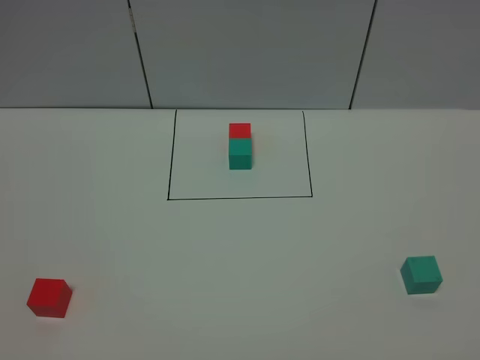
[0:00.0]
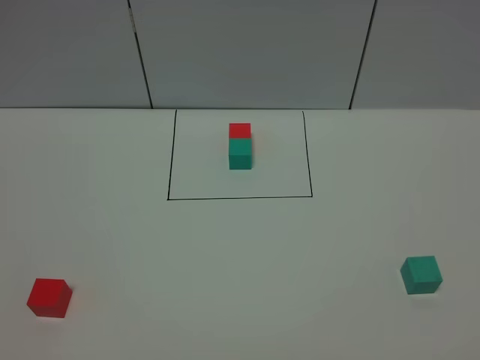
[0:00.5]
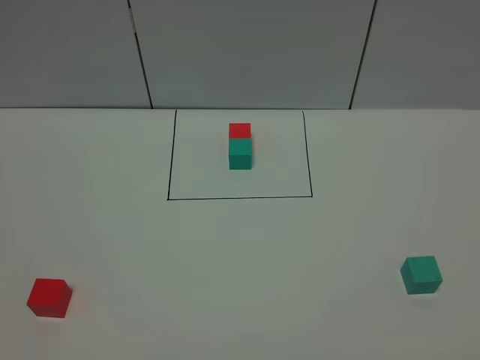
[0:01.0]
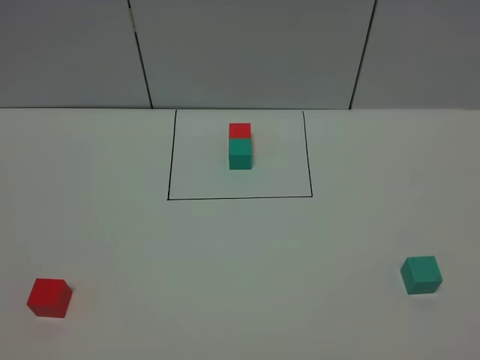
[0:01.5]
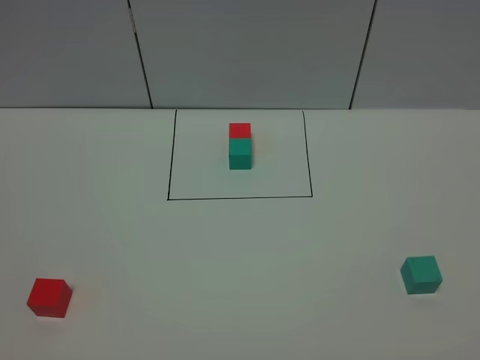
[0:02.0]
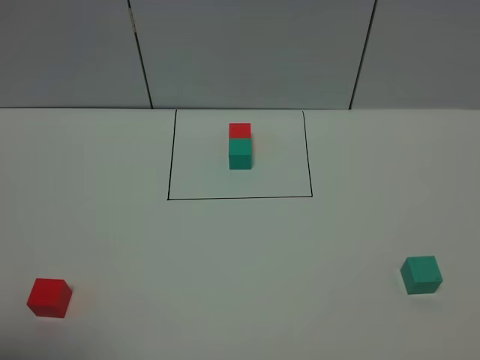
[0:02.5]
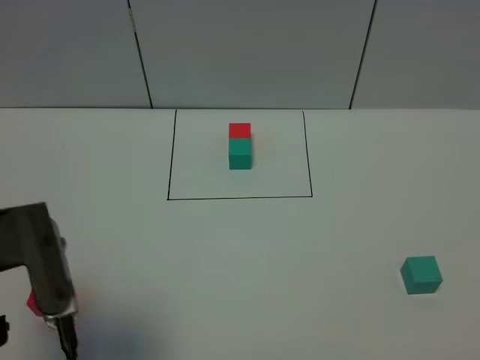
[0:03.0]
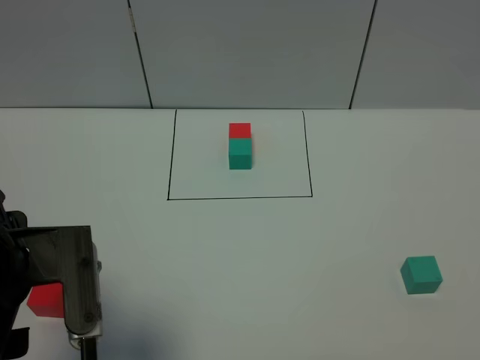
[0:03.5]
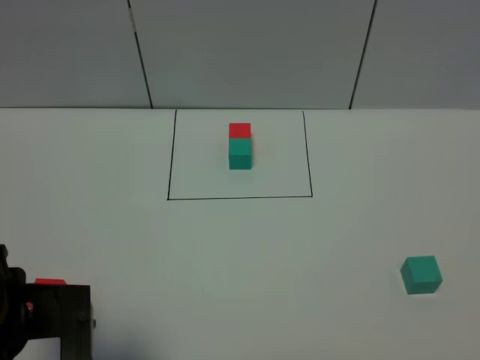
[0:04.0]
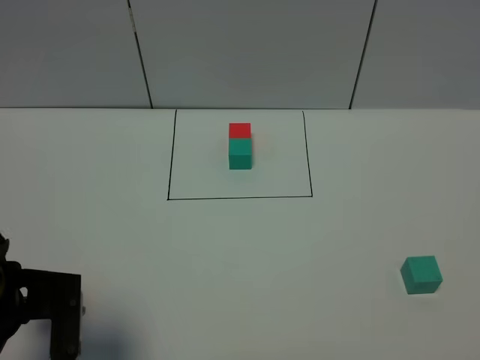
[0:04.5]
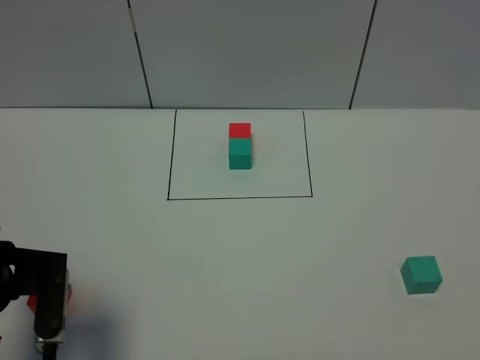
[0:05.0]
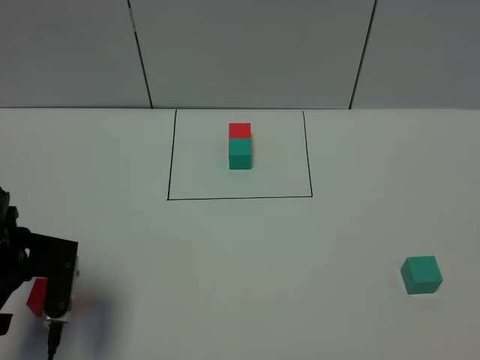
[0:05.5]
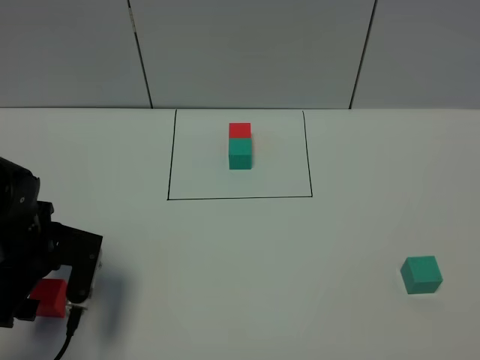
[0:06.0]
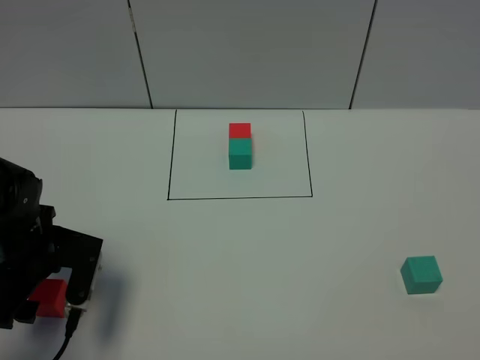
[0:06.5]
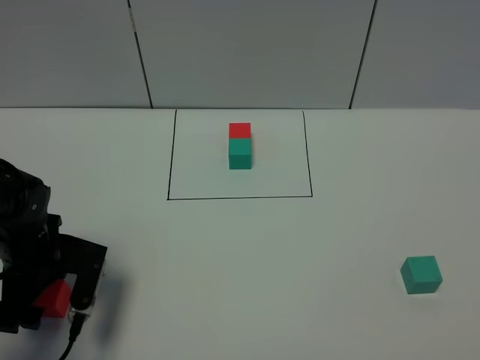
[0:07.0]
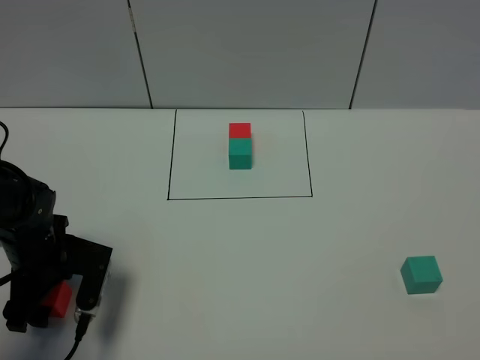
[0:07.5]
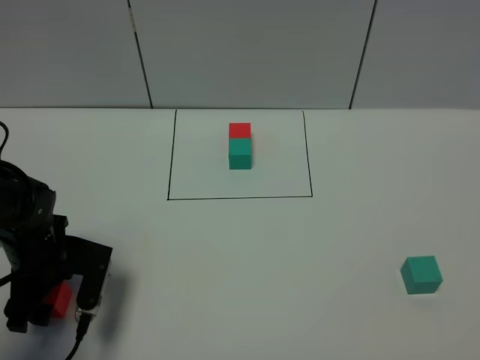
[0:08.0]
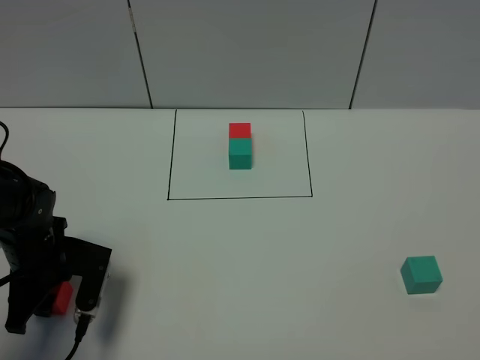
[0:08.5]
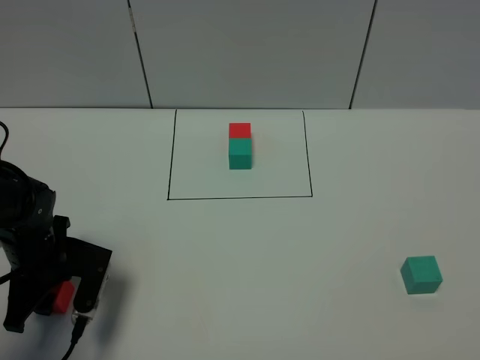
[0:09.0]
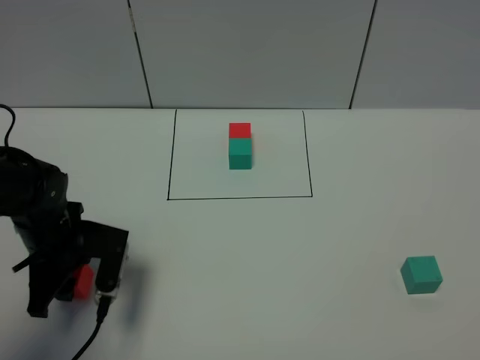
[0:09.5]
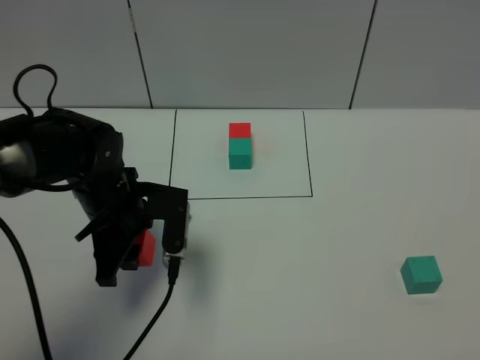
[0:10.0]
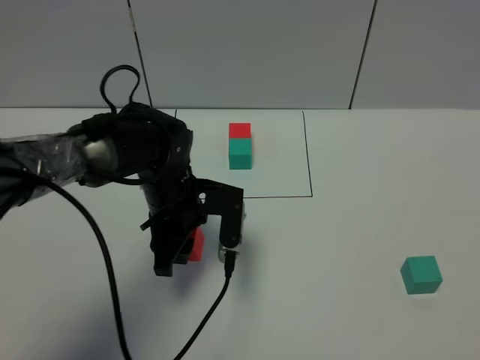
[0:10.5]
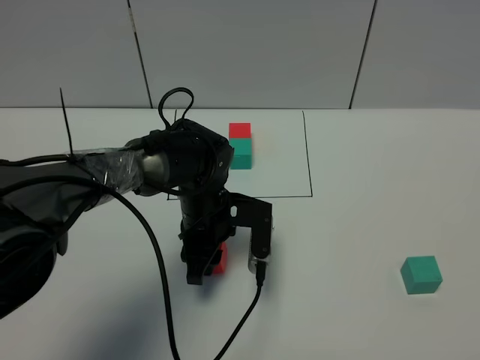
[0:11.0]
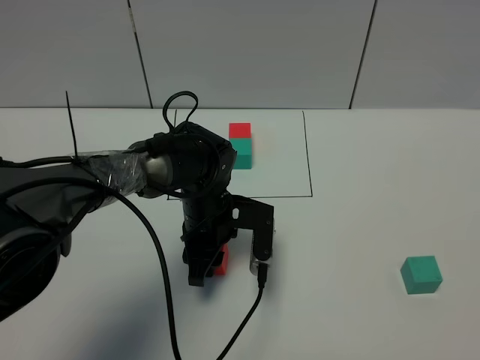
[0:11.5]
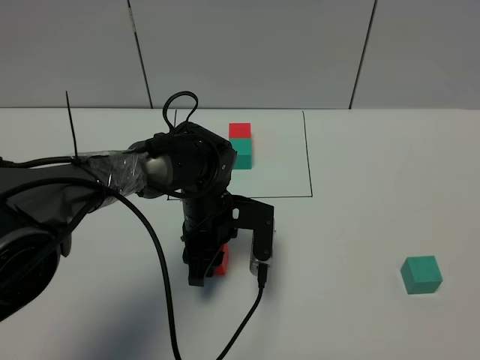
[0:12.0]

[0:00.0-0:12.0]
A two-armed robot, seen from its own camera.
Task of the whole recording: According to the building block template in front, assemble the scattered blocks together.
0:02.0 to 0:04.0: The left gripper shifts some 15 cm forward and to the right.
0:04.0 to 0:06.0: The left gripper goes roughly 15 cm forward and downward.
0:06.0 to 0:08.0: The grippers make only small movements.
0:08.0 to 0:10.0: The left gripper moves to the right and upward, some 10 cm, and closes up.
0:10.0 to 0:12.0: The left gripper goes roughly 10 cm to the right and downward.

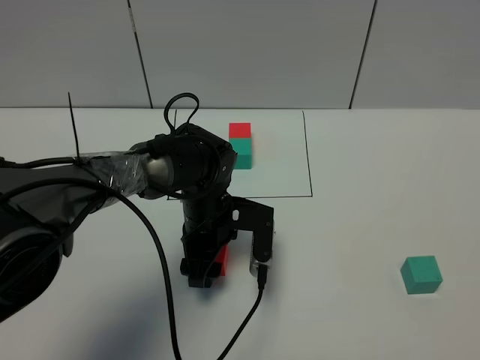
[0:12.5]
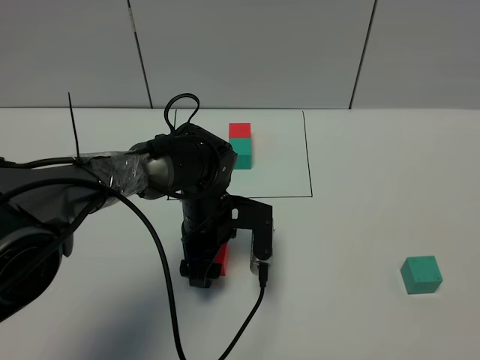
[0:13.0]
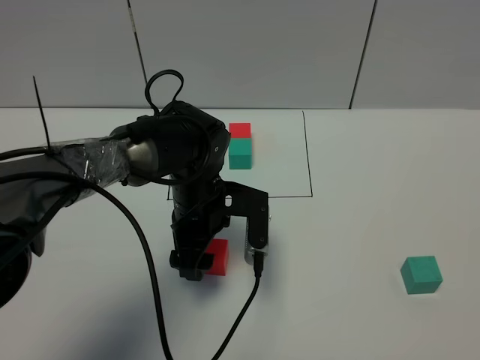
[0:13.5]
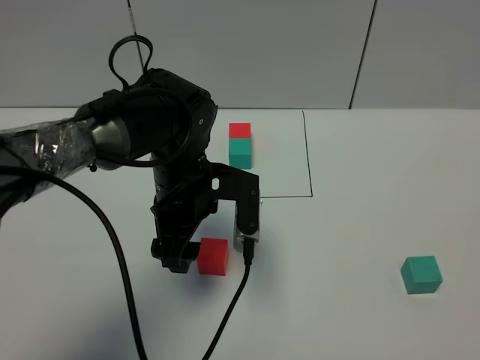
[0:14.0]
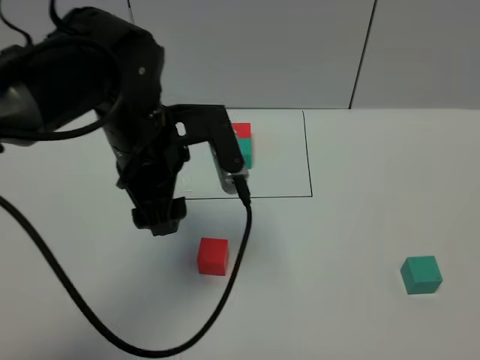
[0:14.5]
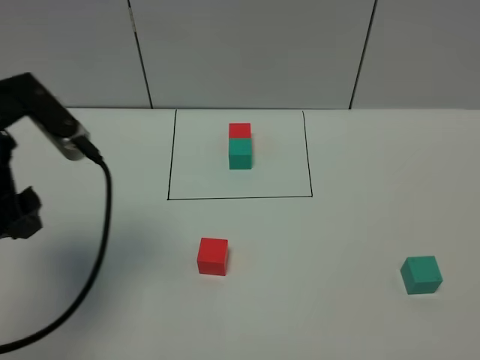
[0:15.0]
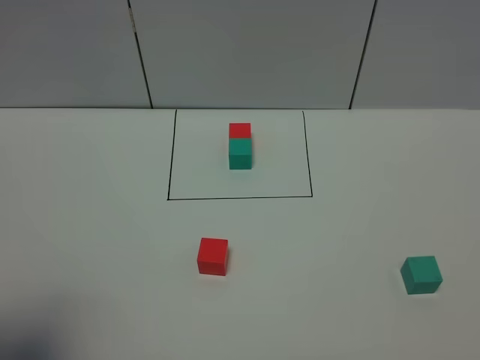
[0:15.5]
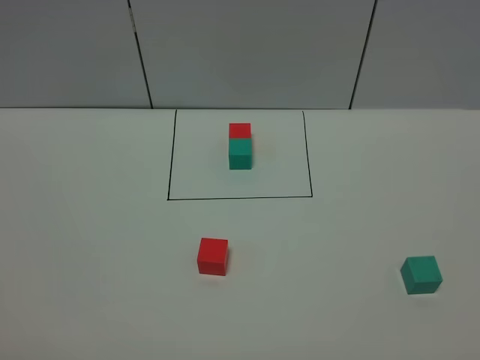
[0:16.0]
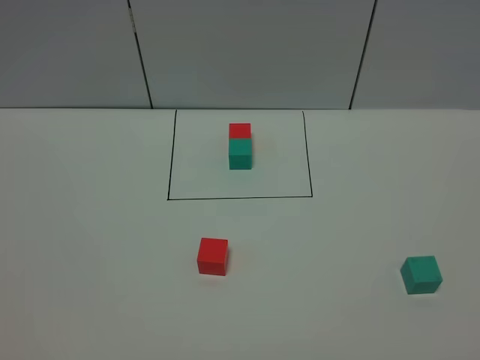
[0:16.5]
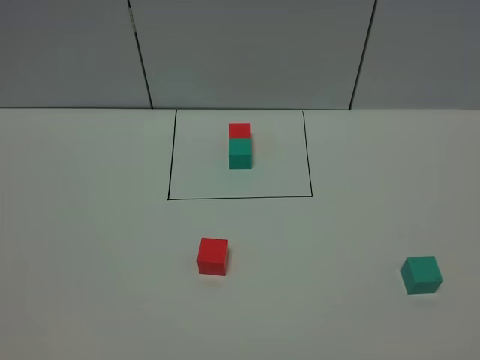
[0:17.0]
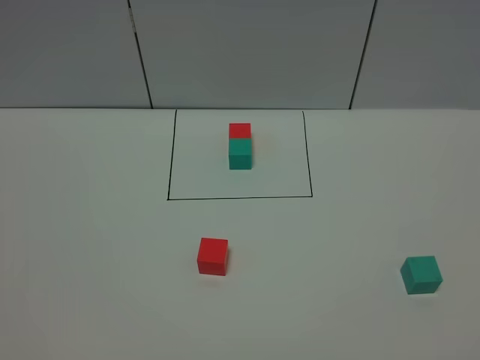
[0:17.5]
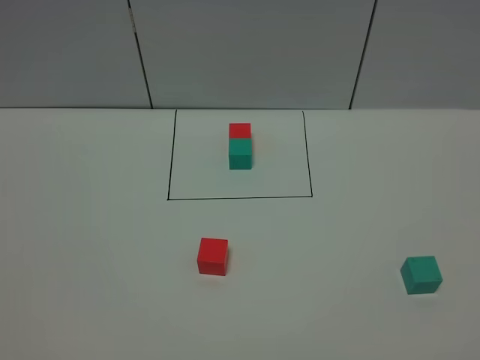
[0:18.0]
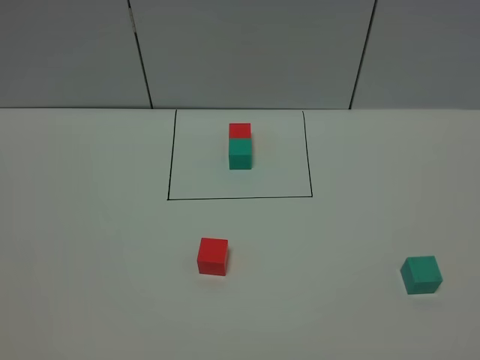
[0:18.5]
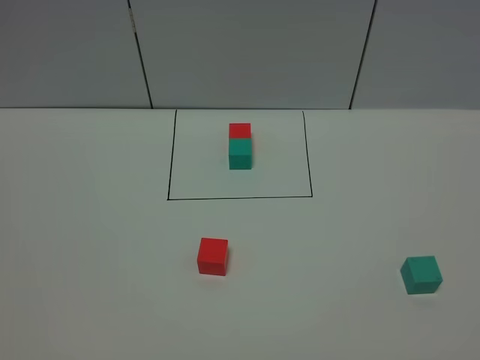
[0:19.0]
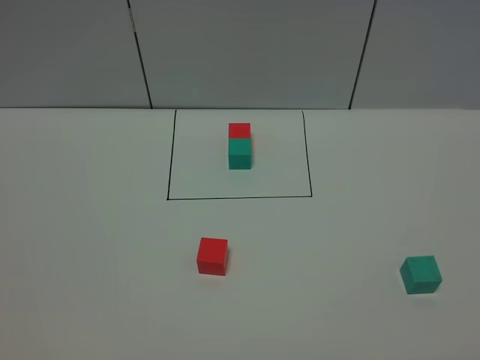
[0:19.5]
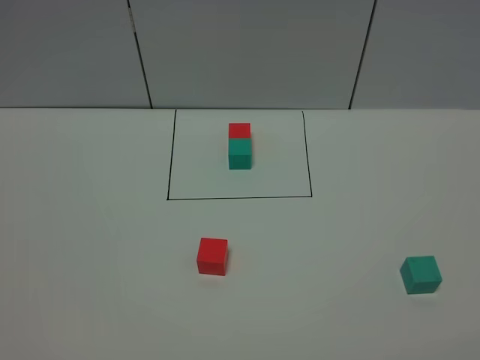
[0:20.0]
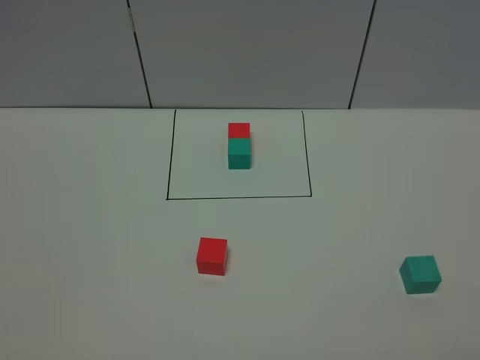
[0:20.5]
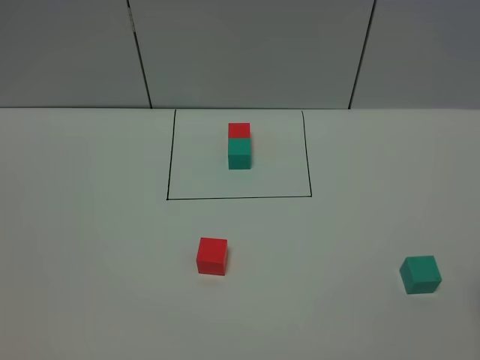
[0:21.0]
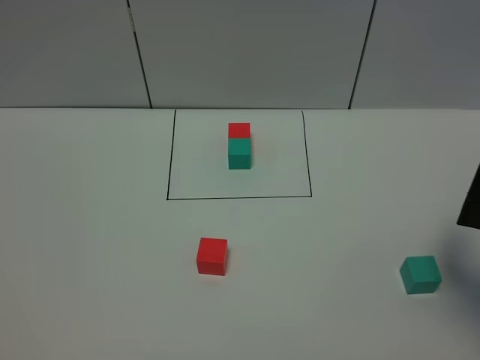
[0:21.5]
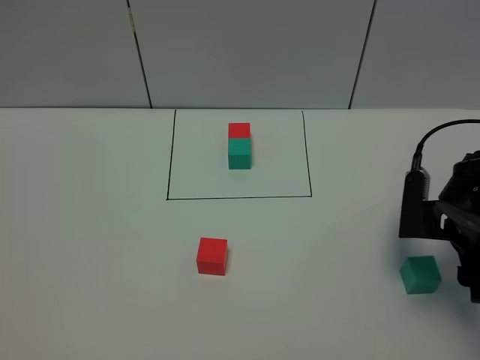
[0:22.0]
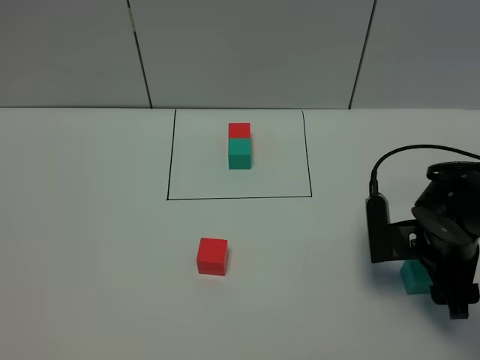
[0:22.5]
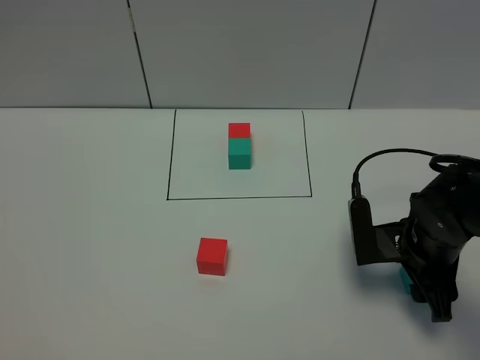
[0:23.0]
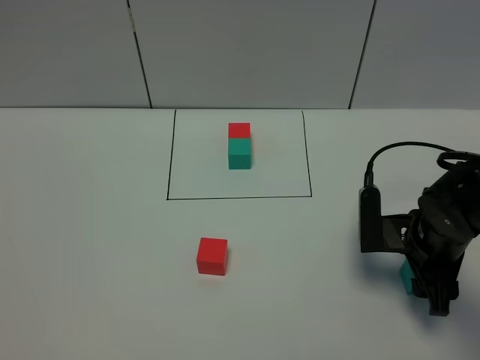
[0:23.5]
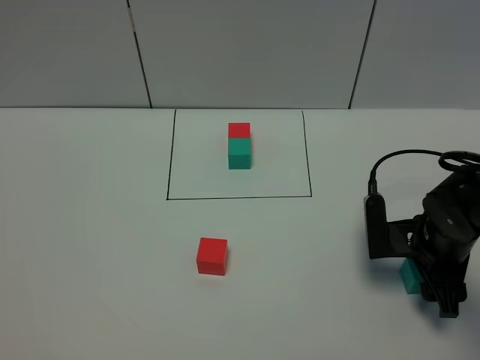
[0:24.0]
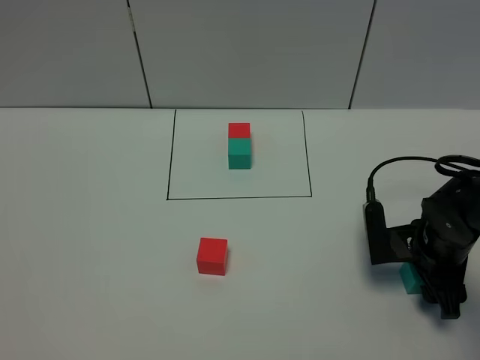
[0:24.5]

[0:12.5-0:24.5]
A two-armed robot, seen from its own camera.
Task of the whole recording: According to the building block template in front, assemble the scattered blocks together.
0:12.5 to 0:14.5: The left gripper is displaced upward by approximately 20 cm.
0:14.5 to 0:16.5: The left gripper shifts about 40 cm backward and to the left.
0:20.5 to 0:22.5: The right gripper goes approximately 25 cm forward, downward and to the left.
0:22.5 to 0:24.5: The grippers make only small movements.

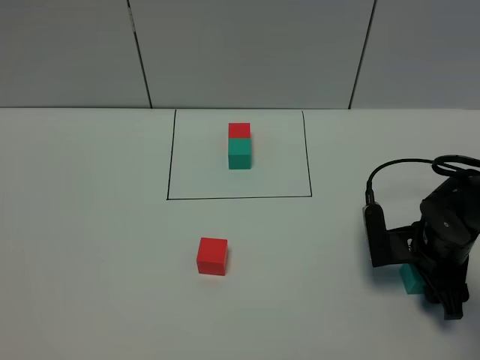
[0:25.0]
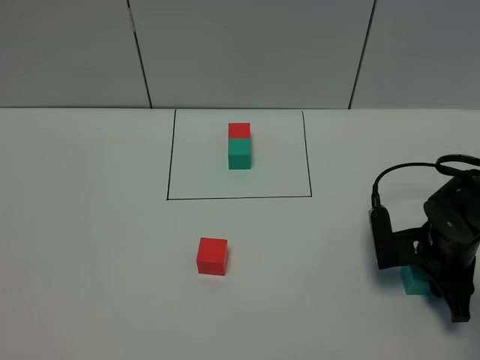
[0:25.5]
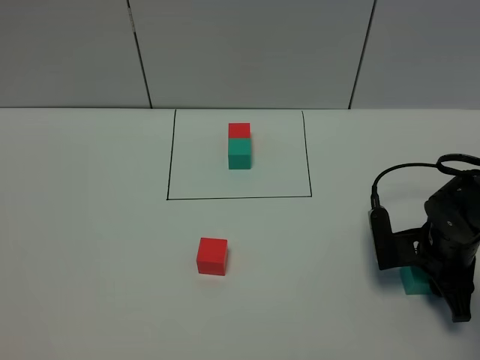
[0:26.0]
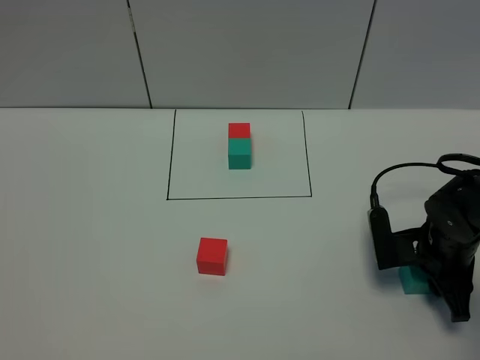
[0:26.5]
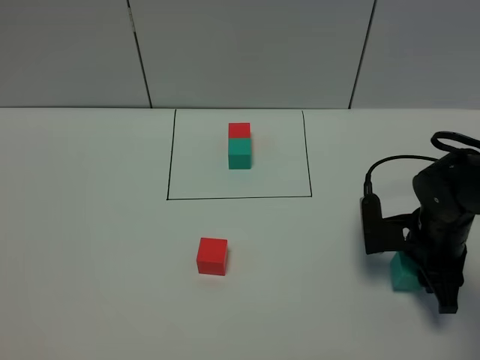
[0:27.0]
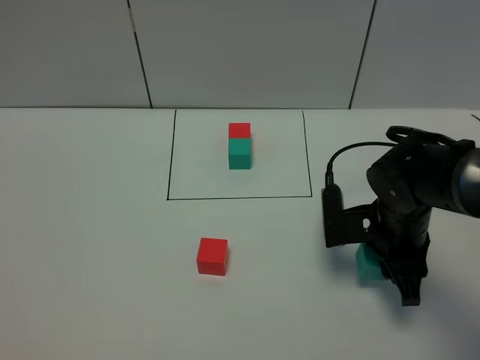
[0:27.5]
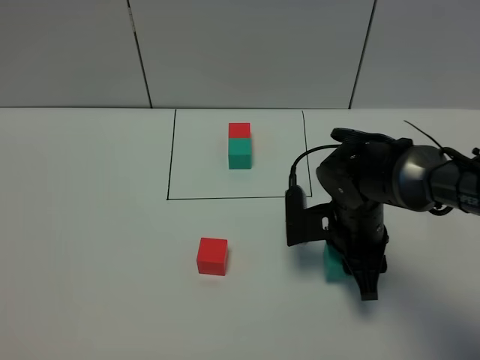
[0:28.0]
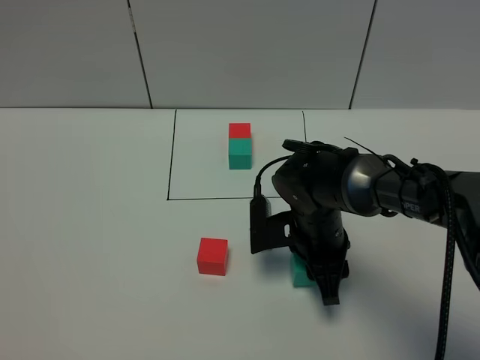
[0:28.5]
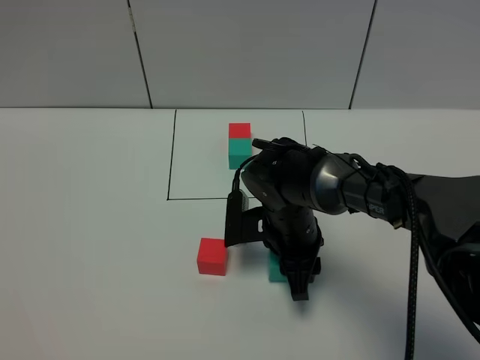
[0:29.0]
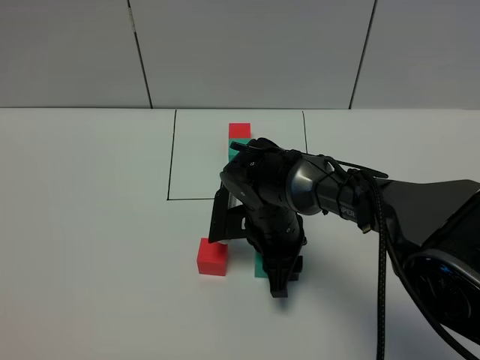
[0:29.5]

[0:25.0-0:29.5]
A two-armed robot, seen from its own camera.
Task of the whole recording: According to the building block template in front, assemble the scattered blocks together.
0:25.0 to 0:27.0: The right gripper closes.
0:27.0 to 0:29.5: The right gripper heads to the left, covering roughly 20 cm.
